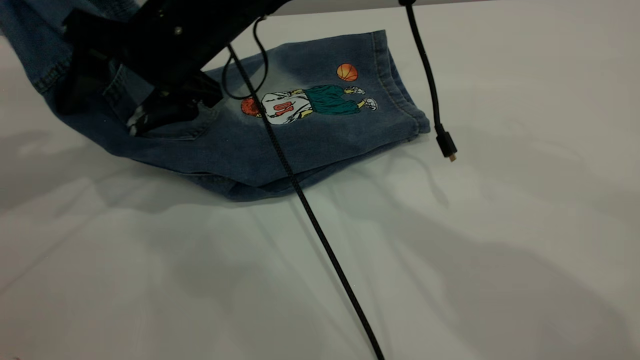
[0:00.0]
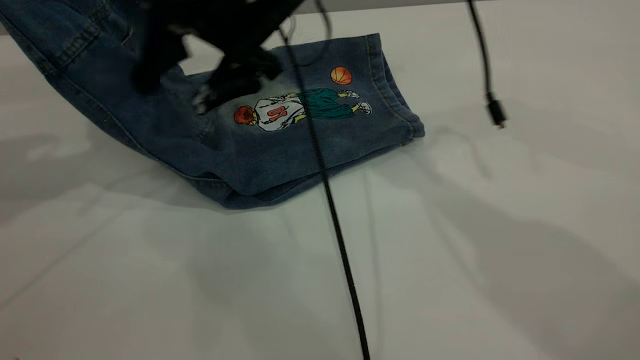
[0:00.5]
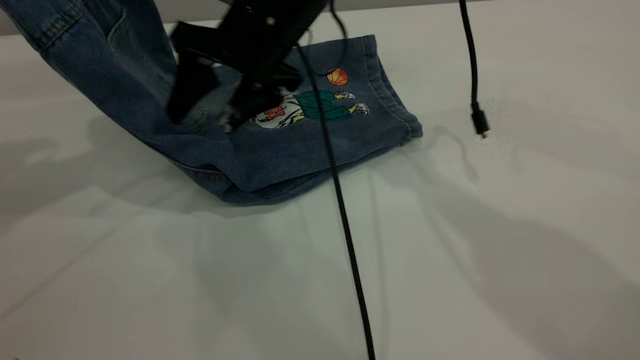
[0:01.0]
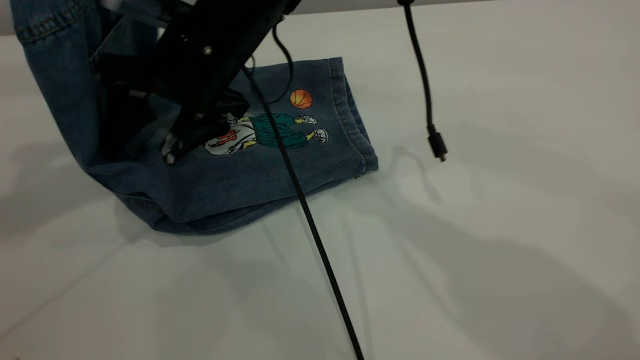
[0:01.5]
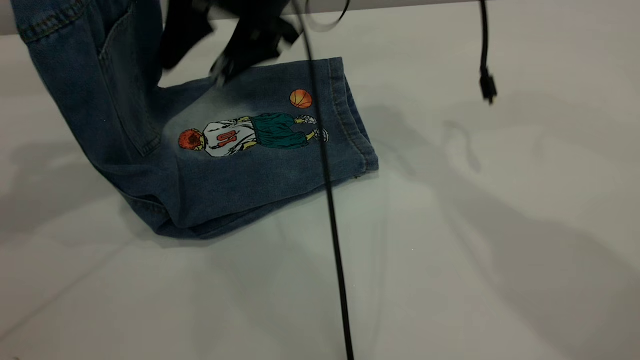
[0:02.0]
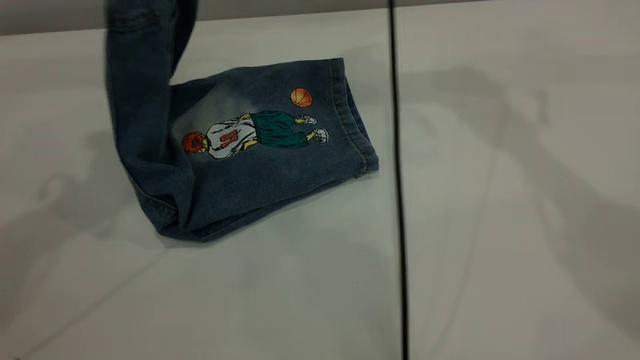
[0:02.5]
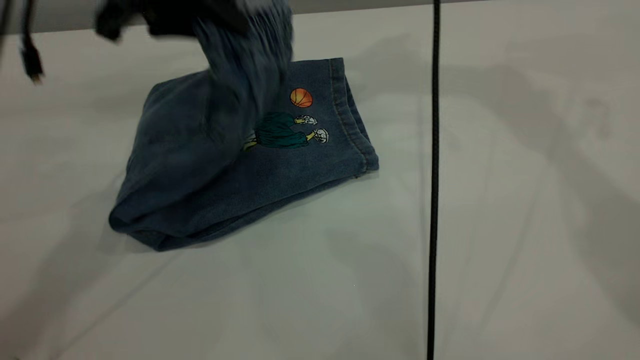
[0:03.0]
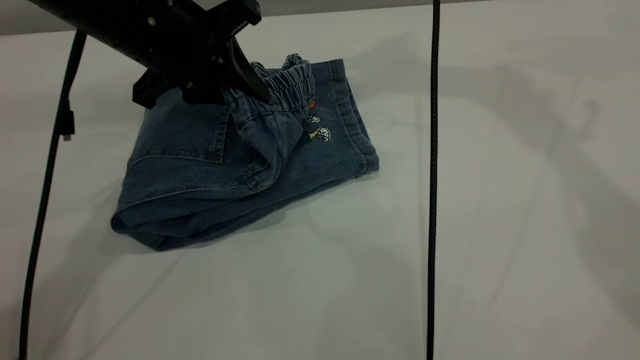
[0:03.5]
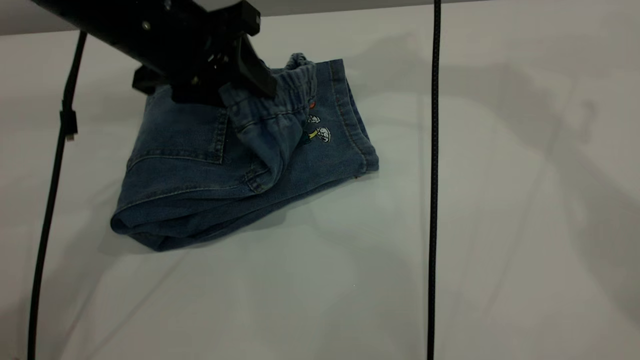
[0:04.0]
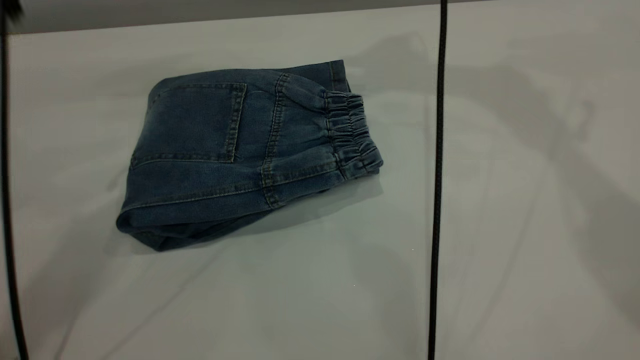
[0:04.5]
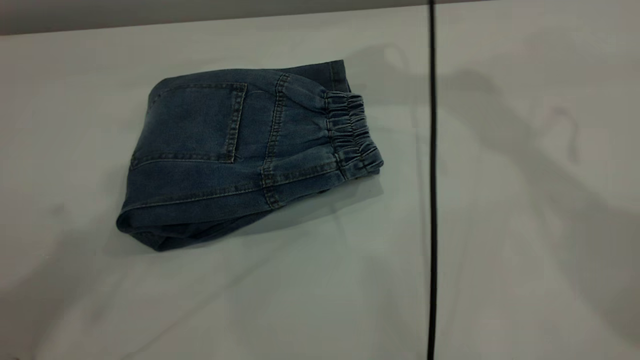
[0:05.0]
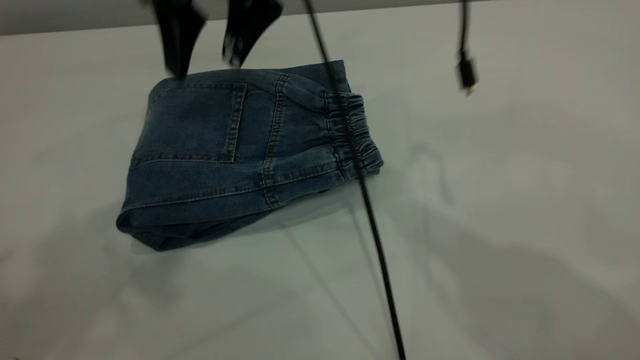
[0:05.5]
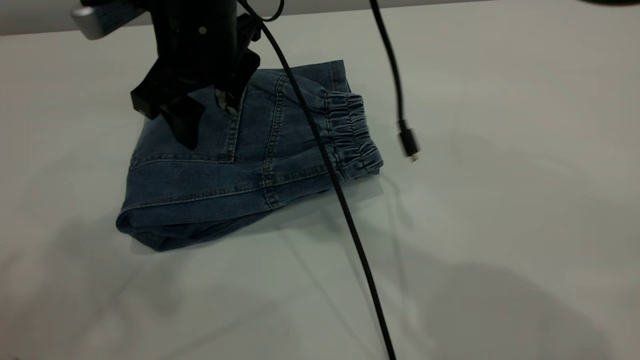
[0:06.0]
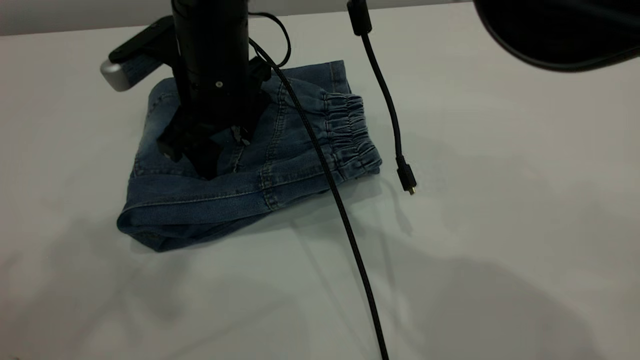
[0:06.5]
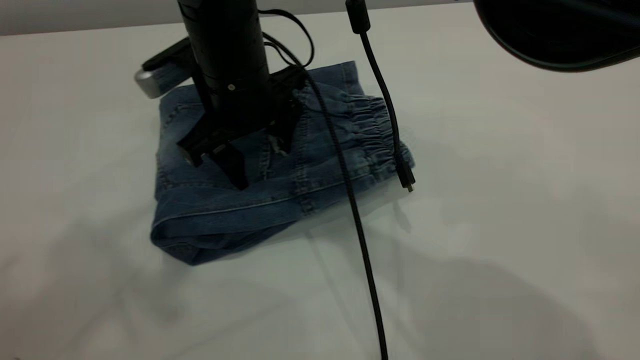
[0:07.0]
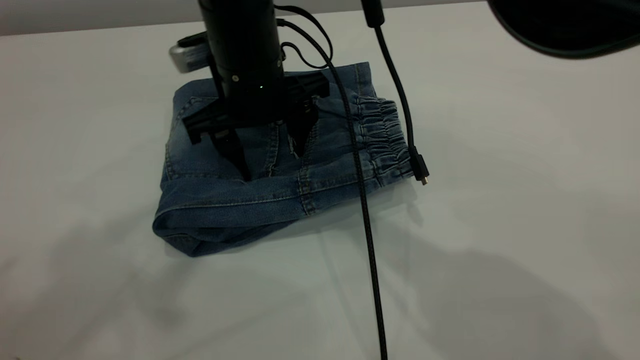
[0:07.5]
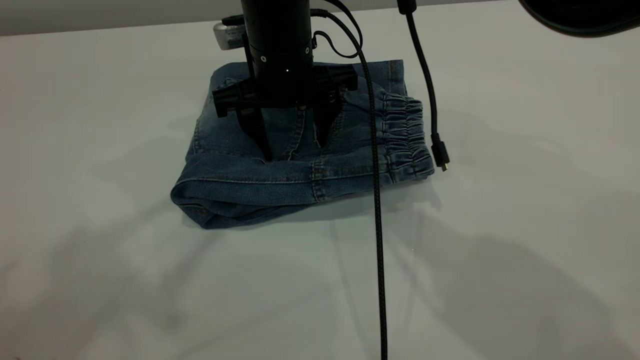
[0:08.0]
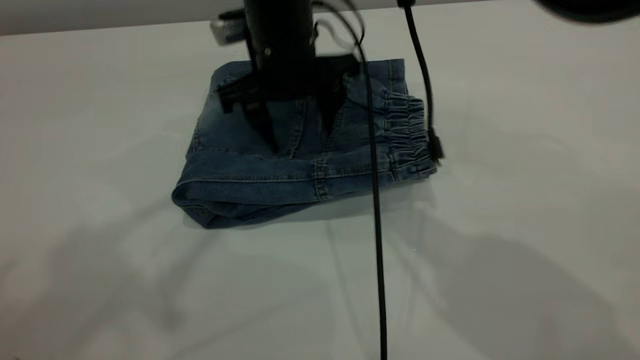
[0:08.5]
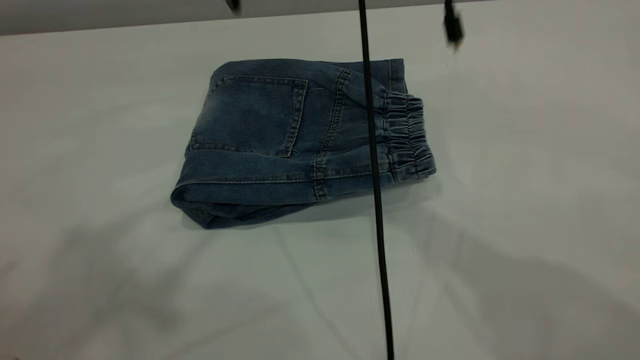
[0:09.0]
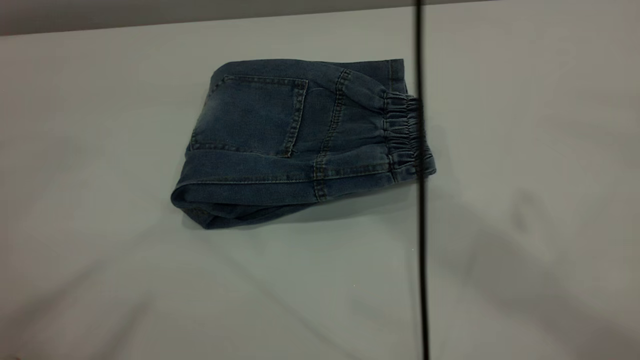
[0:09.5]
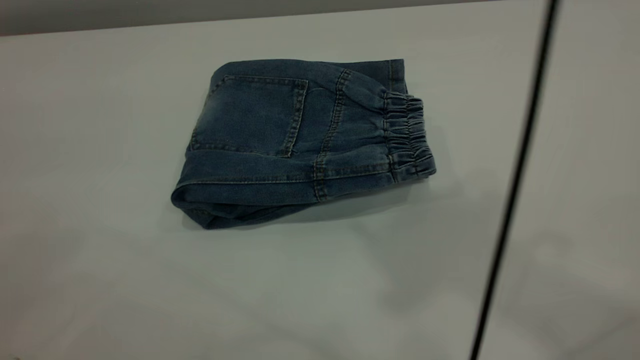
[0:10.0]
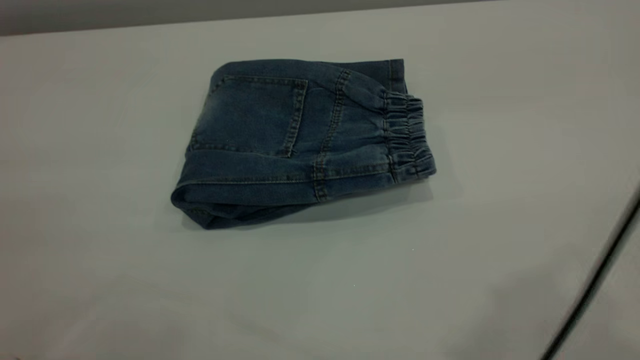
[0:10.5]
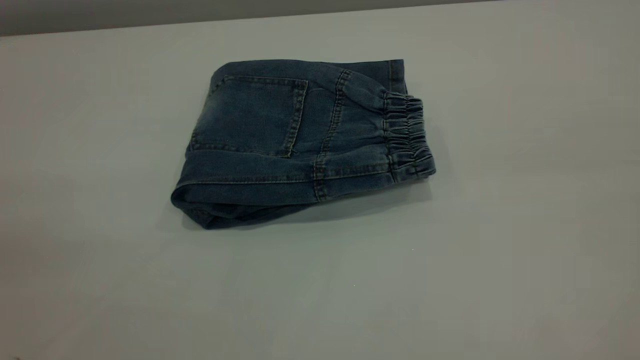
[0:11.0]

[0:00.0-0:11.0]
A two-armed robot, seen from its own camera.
Step, 0:00.0 to 0:04.5: Fold the pants from left to right.
0:00.0 to 0:02.0: The right gripper goes left and right, some 10 cm each way, reversing 2 times. The left gripper heads upward, covering about 5 cm.
0:02.0 to 0:03.5: The right gripper moves upward and to the right, approximately 25 cm. The left gripper shifts roughly 20 cm downward and to the right.
0:03.5 to 0:05.5: The right gripper heads downward, to the left and backward, covering approximately 25 cm. The left gripper travels upward and backward by about 35 cm, and opens its fingers.
0:05.5 to 0:07.5: The right gripper is displaced downward by roughly 10 cm.
0:07.5 to 0:09.0: The right gripper heads upward, covering some 15 cm.
0:09.0 to 0:11.0: The left gripper moves backward, downward and to the left, some 25 cm; the right gripper moves backward, to the right and upward, about 50 cm.
